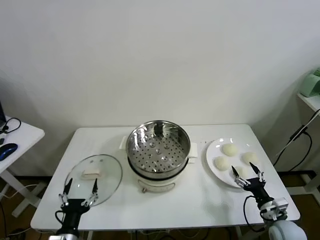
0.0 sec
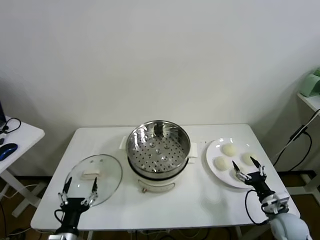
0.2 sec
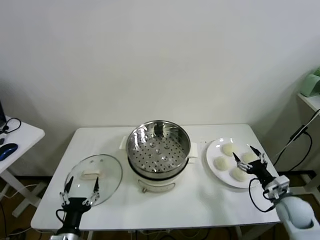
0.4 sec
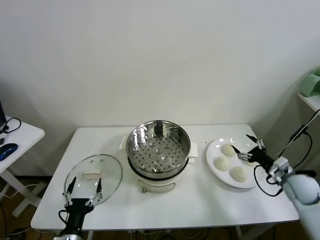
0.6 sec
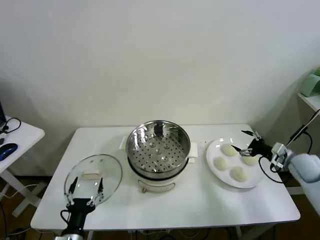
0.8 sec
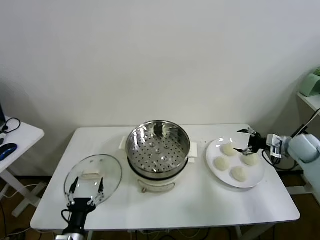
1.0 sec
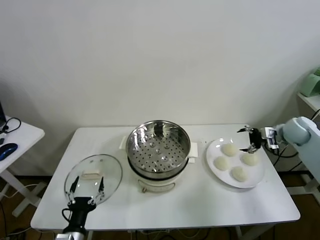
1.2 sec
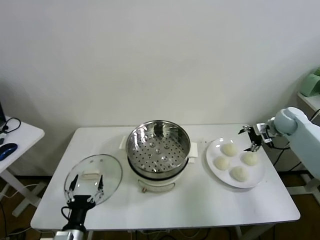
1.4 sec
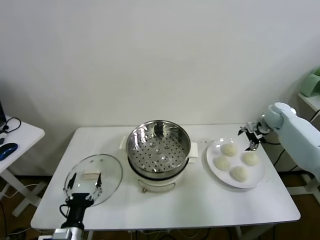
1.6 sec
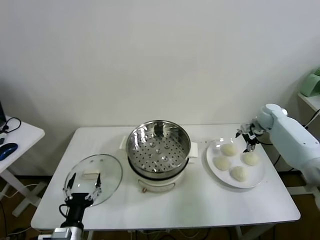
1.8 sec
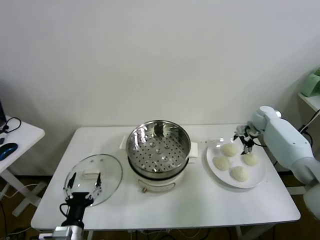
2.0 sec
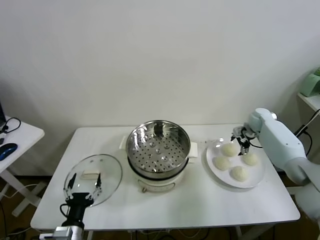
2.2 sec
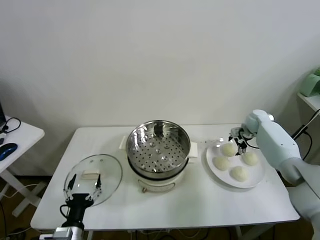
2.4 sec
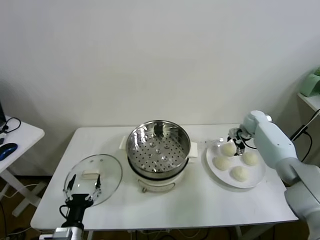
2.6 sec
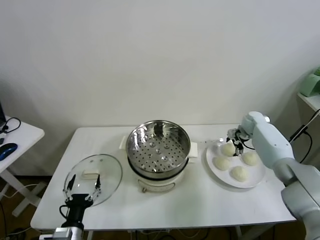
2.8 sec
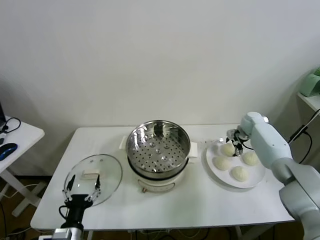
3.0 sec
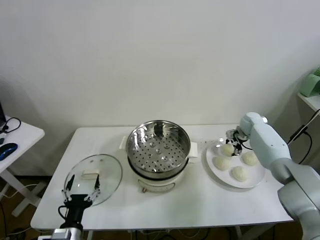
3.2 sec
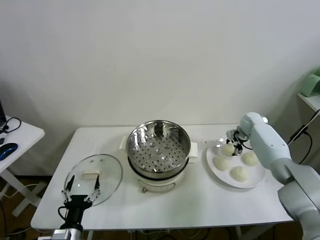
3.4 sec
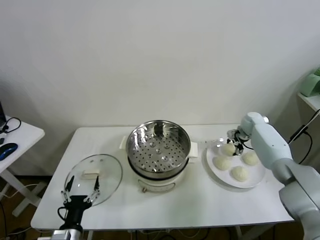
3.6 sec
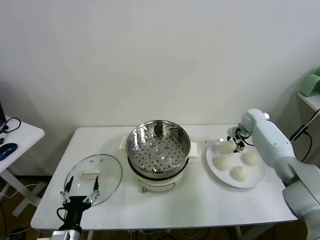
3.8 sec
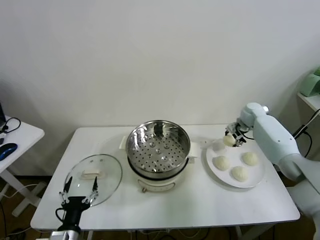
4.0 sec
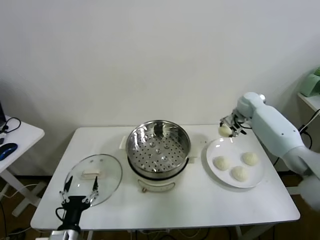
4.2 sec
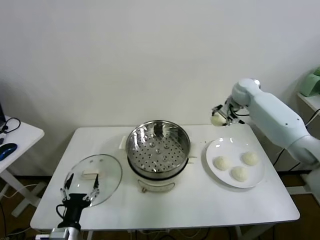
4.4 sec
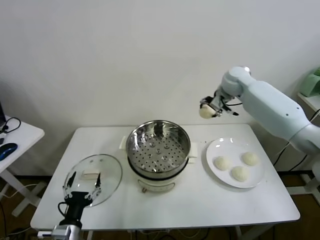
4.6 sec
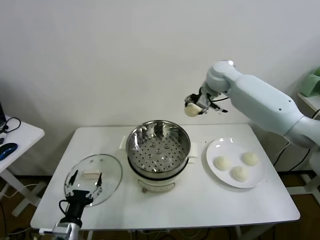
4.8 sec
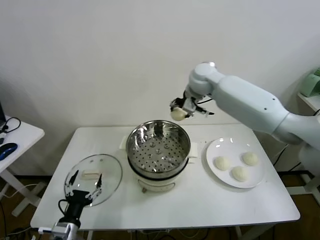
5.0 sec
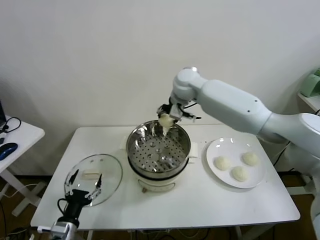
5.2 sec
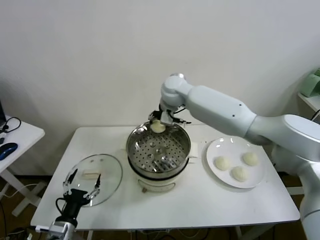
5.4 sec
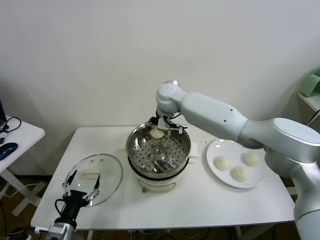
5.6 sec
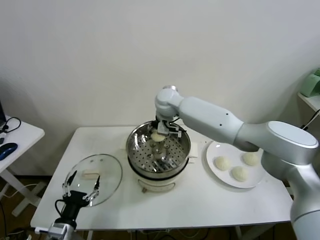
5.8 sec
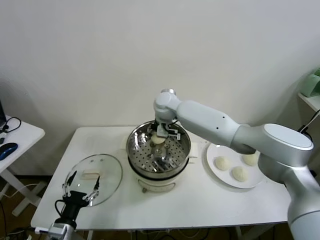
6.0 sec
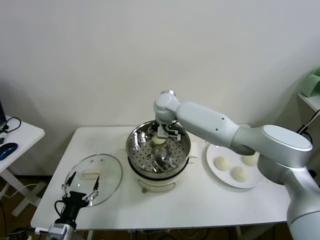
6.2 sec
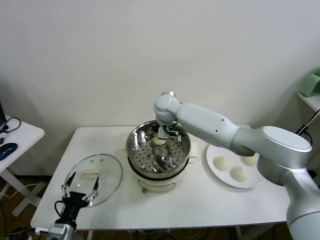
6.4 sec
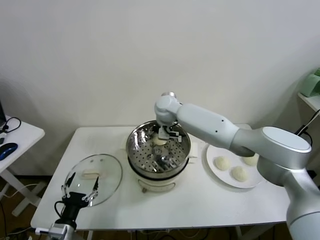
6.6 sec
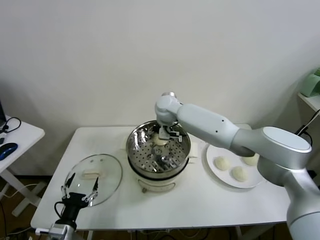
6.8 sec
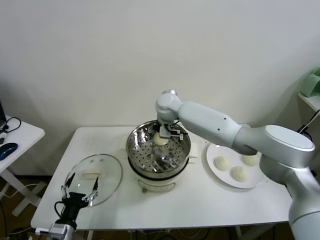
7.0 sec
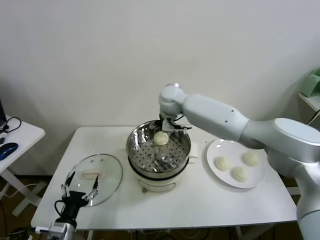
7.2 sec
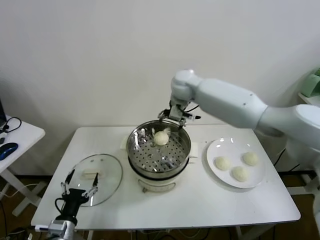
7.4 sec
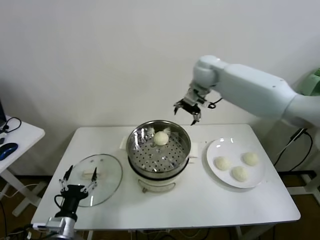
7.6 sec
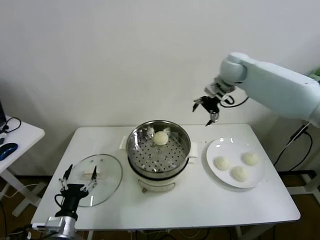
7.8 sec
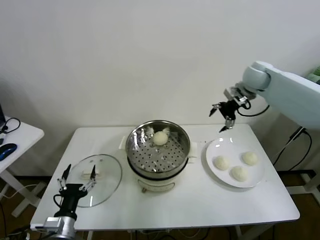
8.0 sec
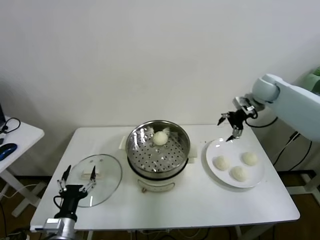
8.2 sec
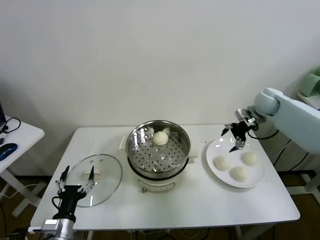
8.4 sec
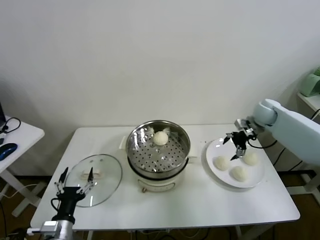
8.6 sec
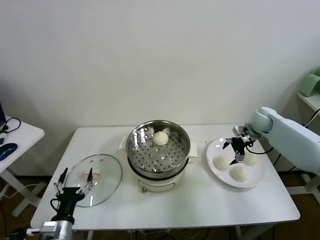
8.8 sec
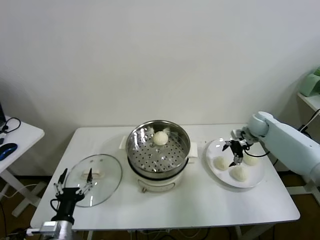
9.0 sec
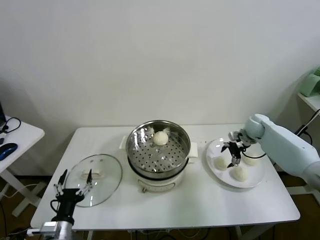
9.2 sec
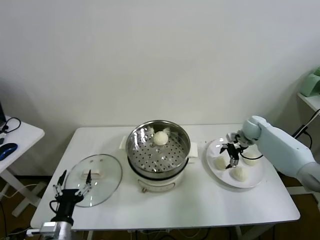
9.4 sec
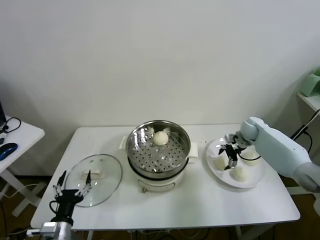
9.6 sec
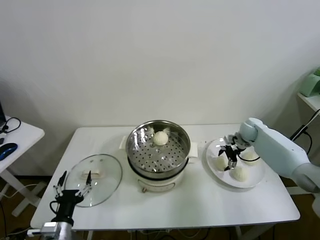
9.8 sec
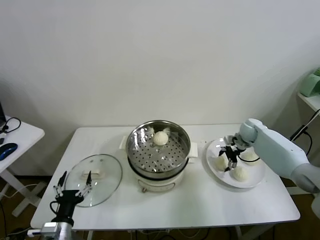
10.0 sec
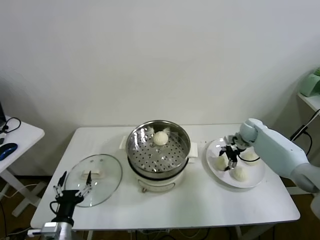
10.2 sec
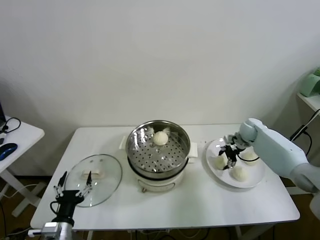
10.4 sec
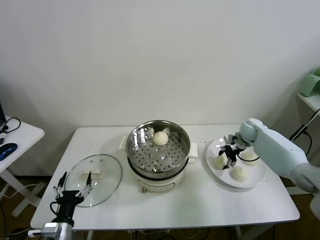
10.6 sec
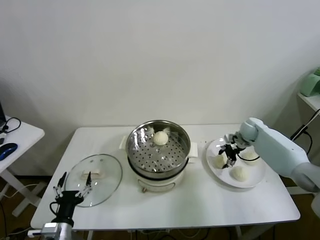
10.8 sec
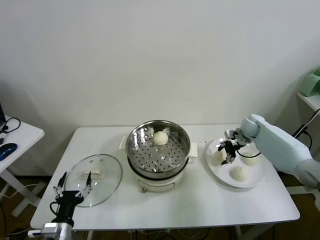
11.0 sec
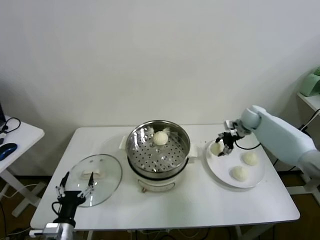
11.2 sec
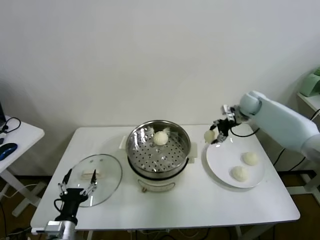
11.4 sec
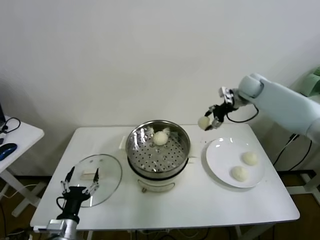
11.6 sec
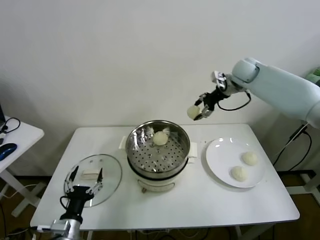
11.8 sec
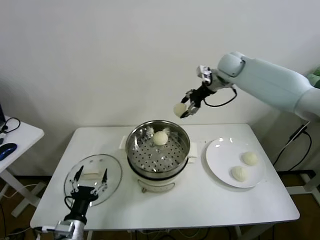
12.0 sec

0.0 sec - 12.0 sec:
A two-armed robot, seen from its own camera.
Task of the whole recording: take steamed baozi put them in steamer.
Step, 0.0 sec - 3.2 sec: Grasp the baozi in the plate with right gripper.
Step, 3.4 sec - 6.8 sec: Place the baozi on the steamer with right gripper.
Step, 7.0 sec - 10.2 sec: Grasp the baozi in the plate with right gripper.
1.6 sec - 3.0 sec: The right gripper heads downward and to the left, covering about 10 cm.
3.0 sec - 4.4 sec: The right gripper is displaced upward and to the left by roughly 15 cm, and closes.
4.4 sec - 6.0 sec: The right gripper heads to the left, covering about 30 cm.
6.0 sec - 7.6 sec: The right gripper moves to the right and upward, approximately 15 cm, and opens.
7.6 sec - 9.0 sec: The right gripper goes about 35 cm to the right and downward.
9.0 sec - 10.4 sec: The right gripper heads downward, covering roughly 5 cm, and closes.
10.4 sec - 12.0 sec: The right gripper shifts approximately 30 cm upward and to the left.

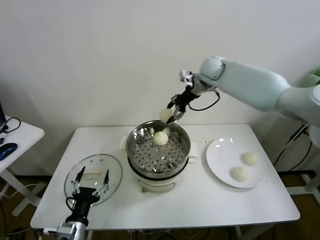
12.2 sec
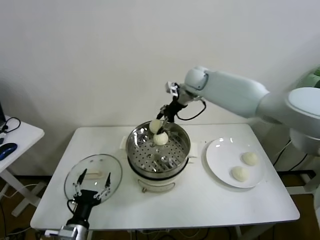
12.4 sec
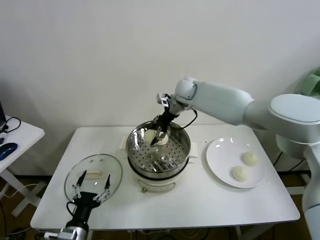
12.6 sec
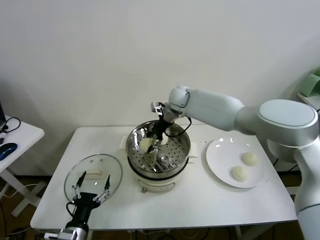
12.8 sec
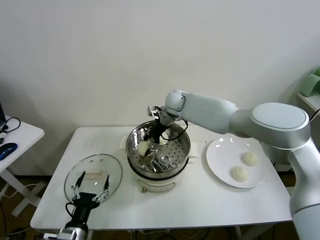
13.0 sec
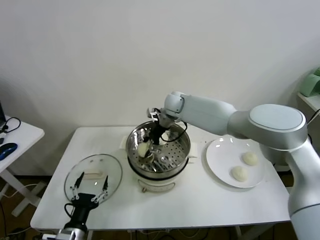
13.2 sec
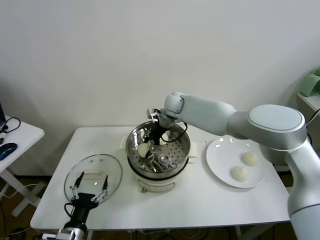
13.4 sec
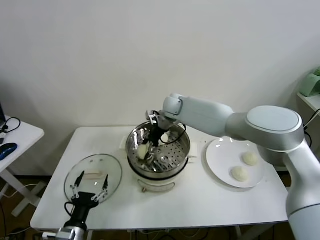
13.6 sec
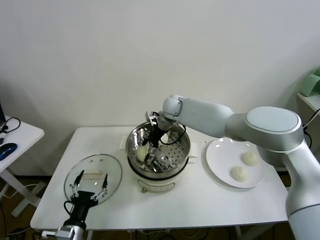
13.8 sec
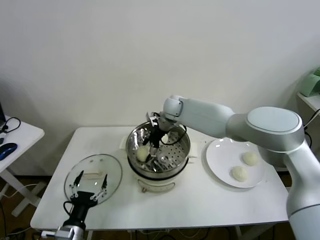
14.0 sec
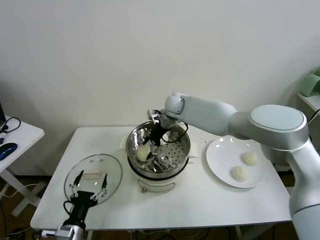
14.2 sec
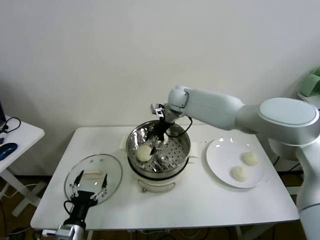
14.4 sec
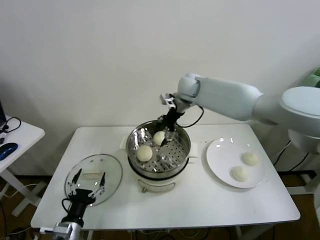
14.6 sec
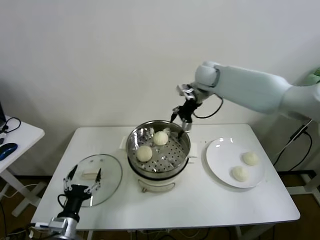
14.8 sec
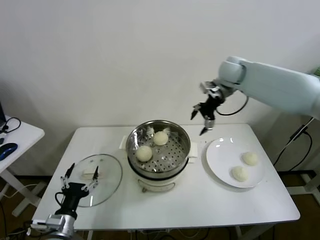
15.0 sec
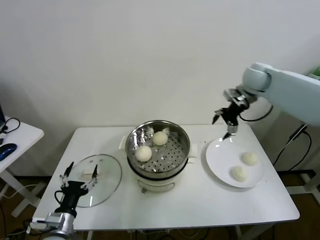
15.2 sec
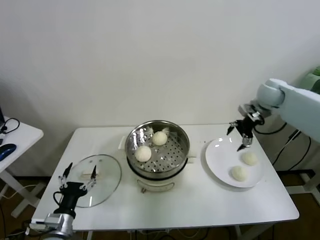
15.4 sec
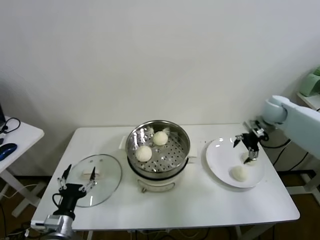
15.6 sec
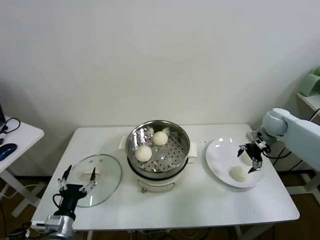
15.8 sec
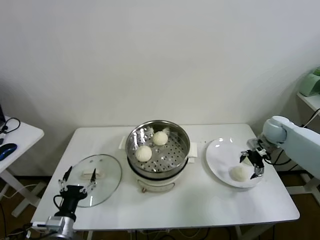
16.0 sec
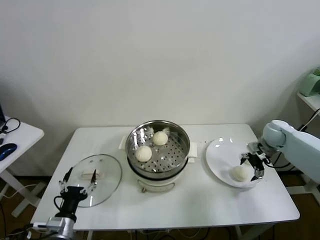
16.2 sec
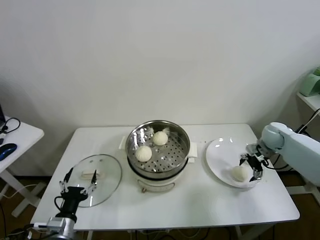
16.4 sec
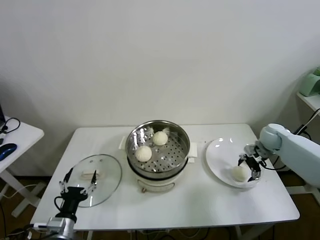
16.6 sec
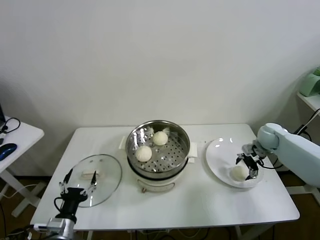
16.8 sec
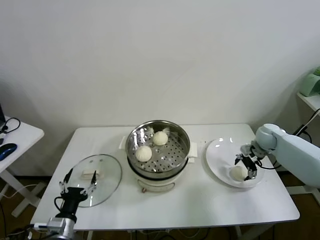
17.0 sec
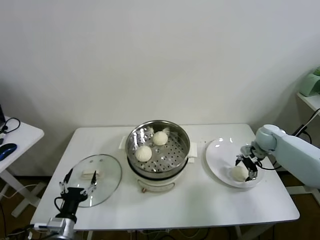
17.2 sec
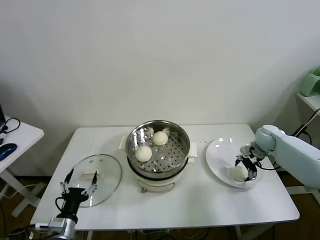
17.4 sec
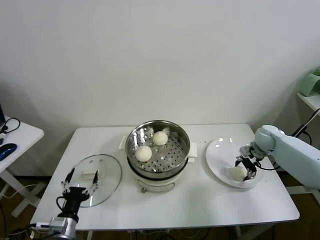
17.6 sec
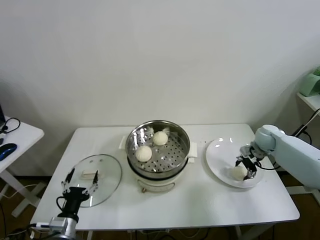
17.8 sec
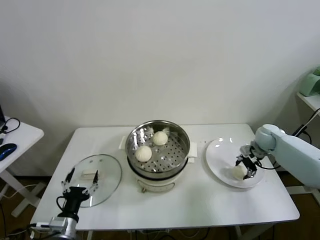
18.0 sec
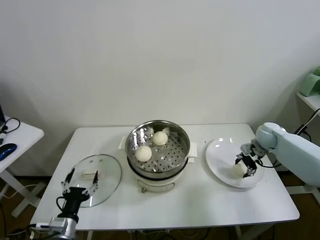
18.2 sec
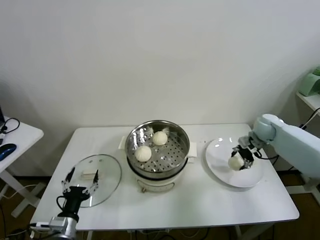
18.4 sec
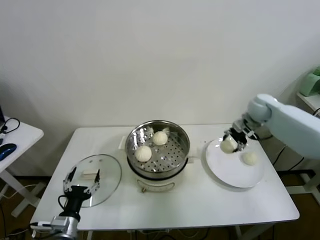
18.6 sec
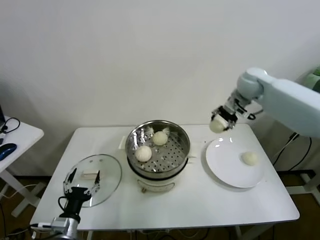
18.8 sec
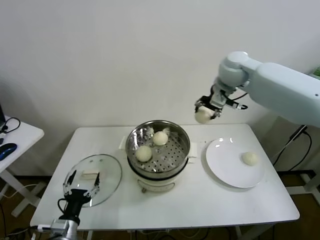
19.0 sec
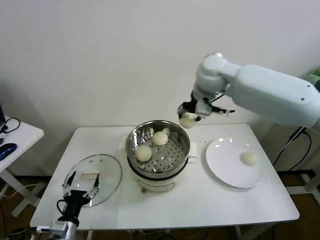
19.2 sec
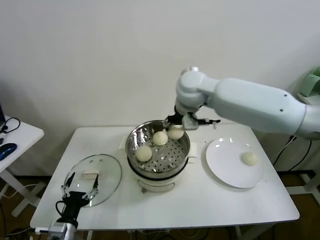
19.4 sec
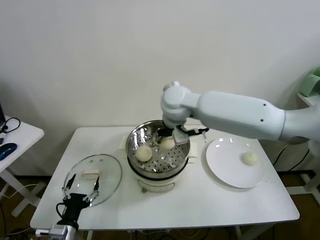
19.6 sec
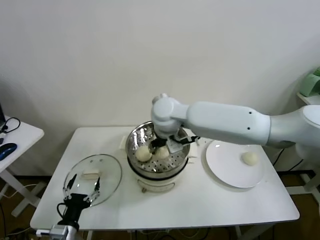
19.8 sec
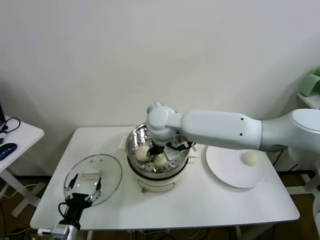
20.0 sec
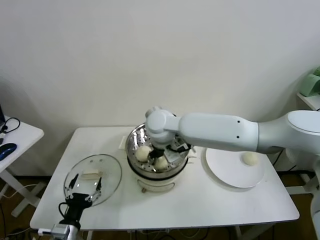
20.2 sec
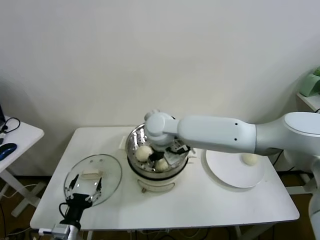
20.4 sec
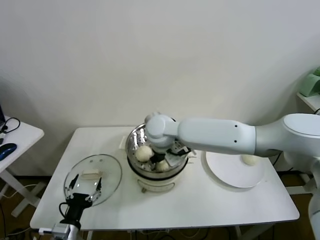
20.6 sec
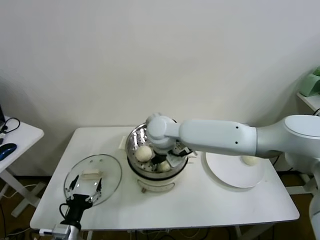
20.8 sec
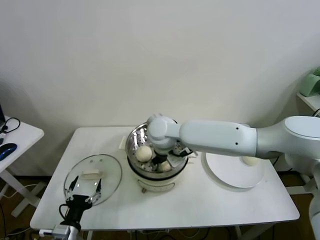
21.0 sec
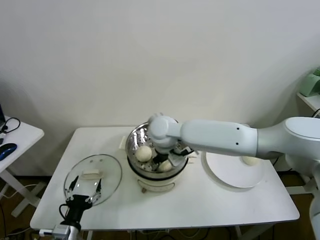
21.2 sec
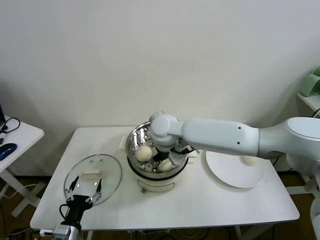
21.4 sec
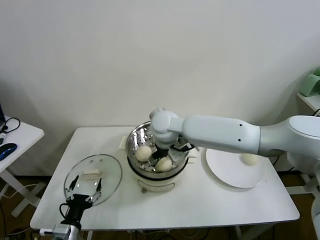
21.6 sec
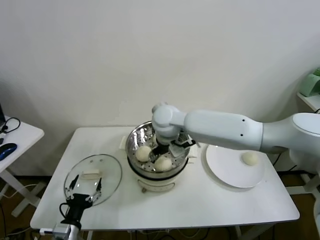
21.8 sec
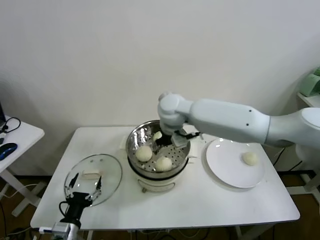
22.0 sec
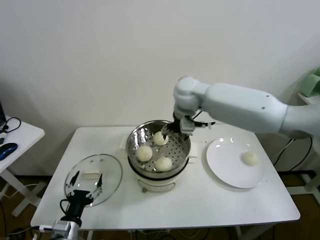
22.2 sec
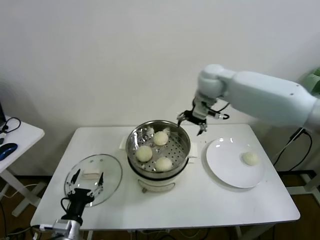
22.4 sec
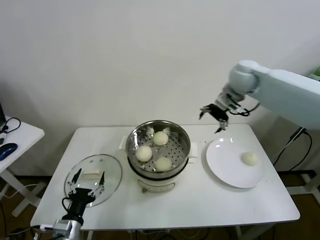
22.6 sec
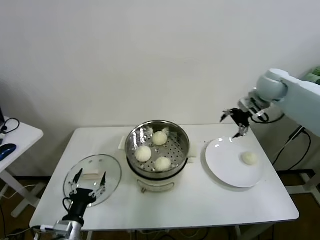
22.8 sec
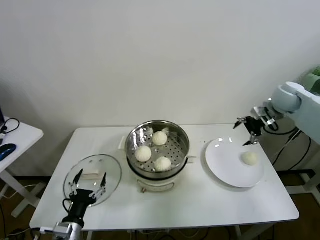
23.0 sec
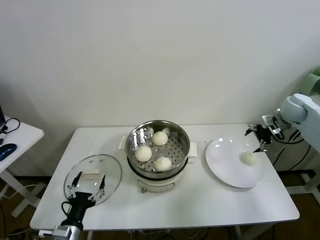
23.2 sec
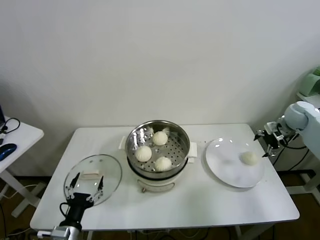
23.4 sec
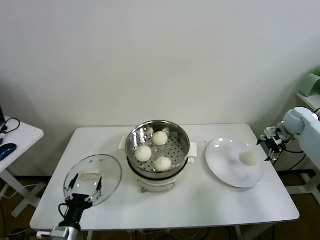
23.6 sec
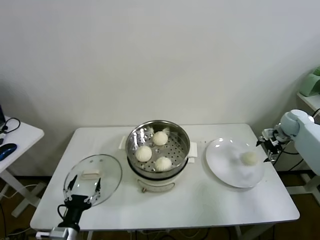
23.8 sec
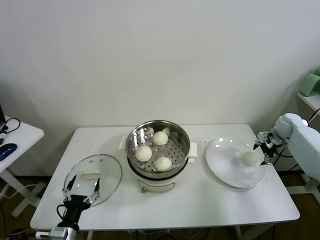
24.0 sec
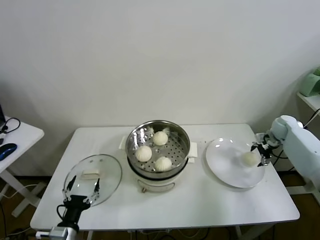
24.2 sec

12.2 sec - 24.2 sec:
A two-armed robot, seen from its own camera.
Task of the whole recording: take steamed baozi put them in steamer.
Step, 14.2 sec - 17.8 sec: Grasp the baozi in the plate with right gripper.
Step, 18.0 sec - 21.6 sec: Place the baozi on the steamer with right gripper.
12.2 sec - 13.8 sec: The right gripper heads downward and to the left, covering roughly 20 cm, and opens its fingers.
13.8 sec - 15.2 sec: The right gripper heads to the right and upward, covering approximately 30 cm.
15.2 sec - 16.6 sec: The right gripper moves downward and to the right, roughly 25 cm.
16.6 sec - 18.2 sec: The right gripper closes up.
18.2 sec - 19.8 sec: The right gripper heads to the left and upward, covering some 40 cm.
19.8 sec - 21.2 sec: The right gripper travels downward by approximately 5 cm, and opens its fingers.
21.2 sec - 22.6 sec: The right gripper heads to the right, upward and forward, covering approximately 30 cm.
22.6 sec - 24.2 sec: The right gripper heads to the right and downward, covering some 35 cm.
